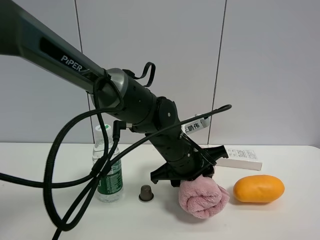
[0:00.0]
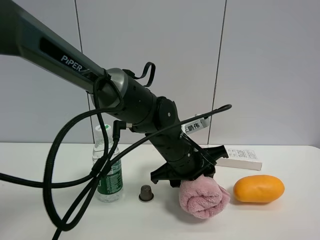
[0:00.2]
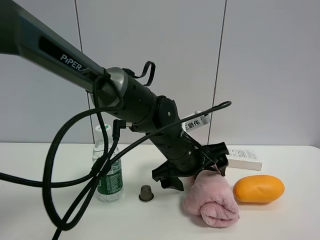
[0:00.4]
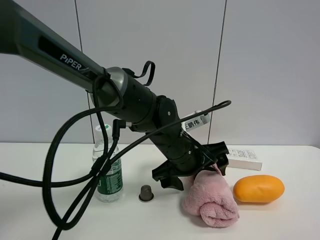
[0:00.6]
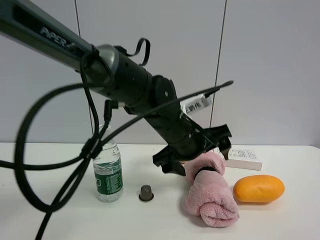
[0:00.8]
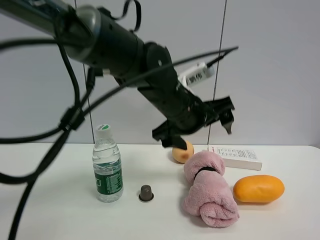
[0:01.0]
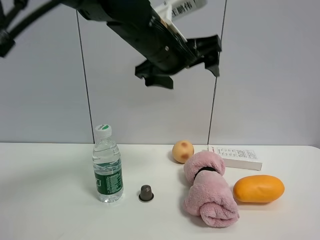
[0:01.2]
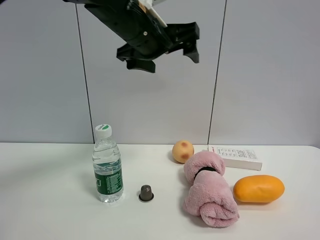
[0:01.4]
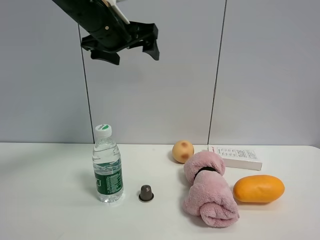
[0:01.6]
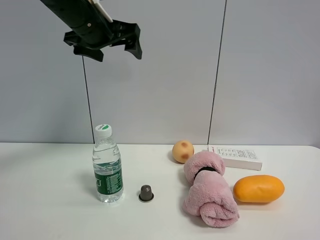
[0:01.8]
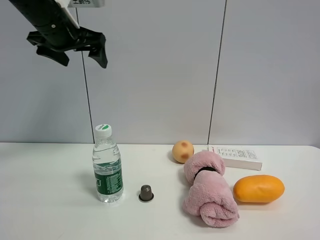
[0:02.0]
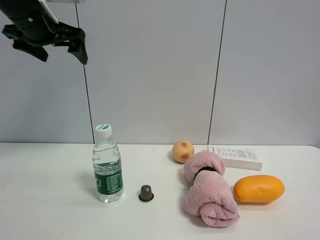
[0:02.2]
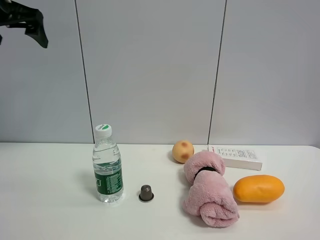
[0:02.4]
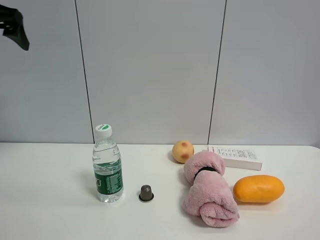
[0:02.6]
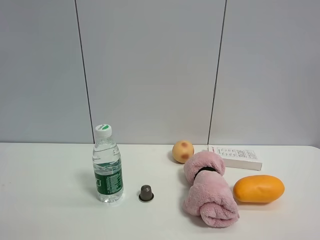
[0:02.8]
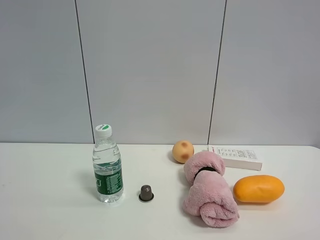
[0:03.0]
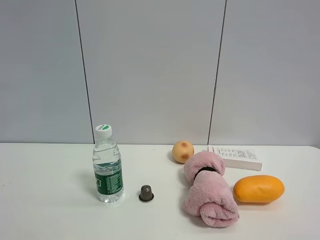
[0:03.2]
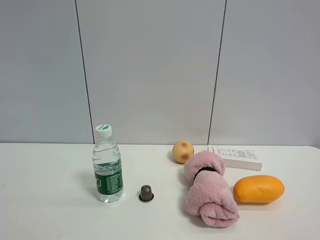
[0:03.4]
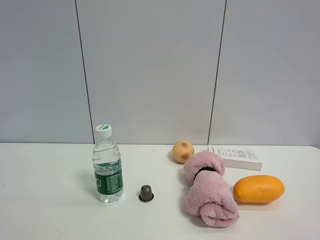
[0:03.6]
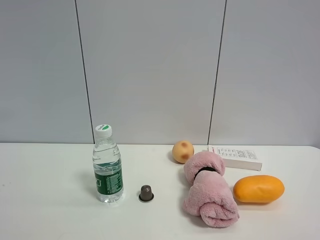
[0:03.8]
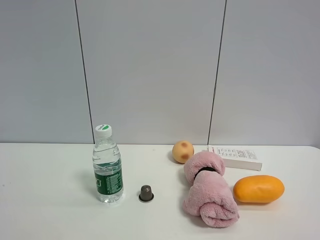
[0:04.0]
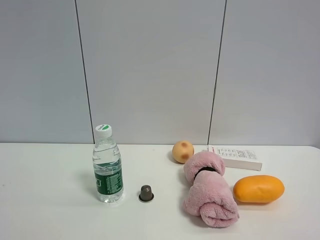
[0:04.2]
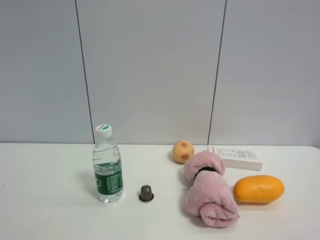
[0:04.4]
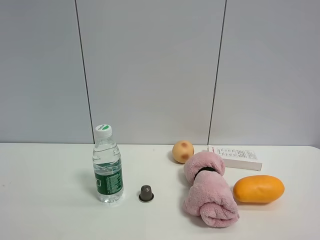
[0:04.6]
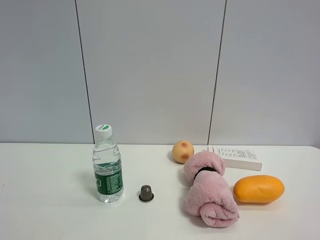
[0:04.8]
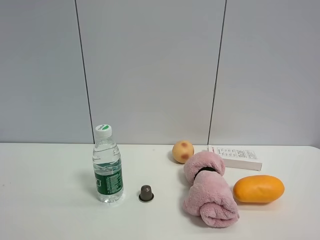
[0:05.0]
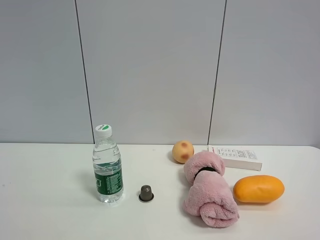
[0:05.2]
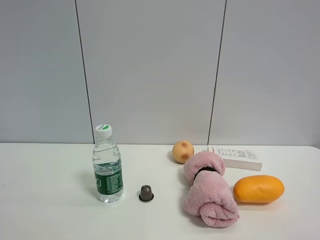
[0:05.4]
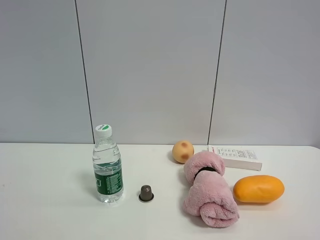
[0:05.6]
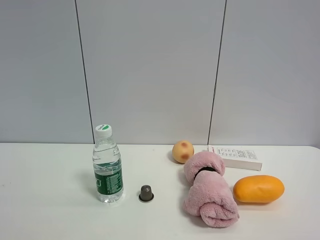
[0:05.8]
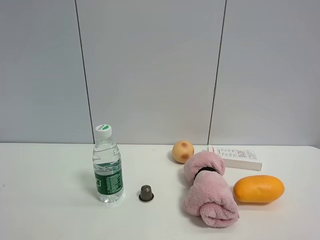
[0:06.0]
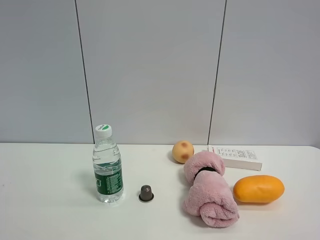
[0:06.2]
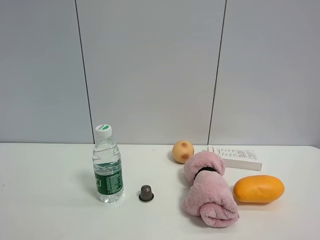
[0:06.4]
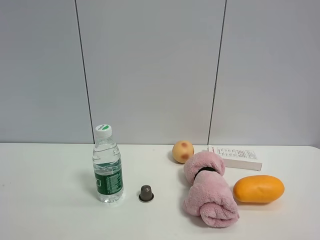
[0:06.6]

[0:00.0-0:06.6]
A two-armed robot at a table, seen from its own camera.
Task of the whole recording: the gripper move the object.
0:00.0 to 0:01.6: The left gripper is displaced upward and to the left by some 25 cm, and opens.
0:01.6 to 0:03.2: The left gripper travels backward and to the left by some 35 cm.
0:05.0 to 0:06.6: Both grippers stay put.

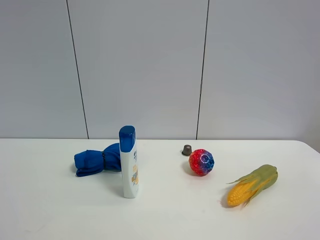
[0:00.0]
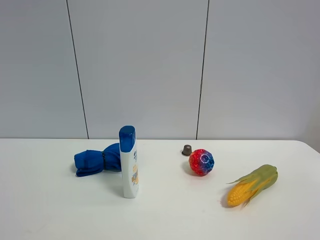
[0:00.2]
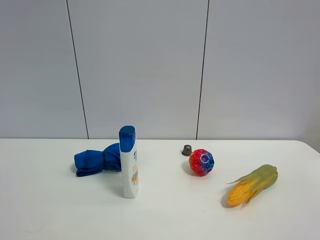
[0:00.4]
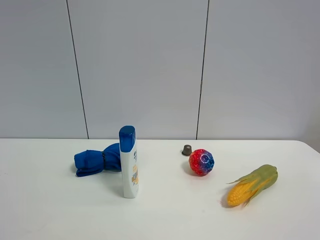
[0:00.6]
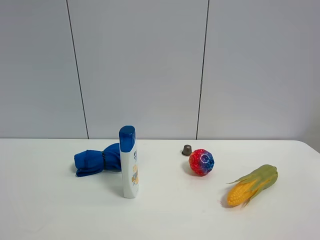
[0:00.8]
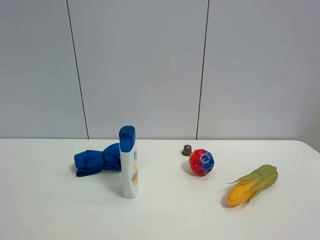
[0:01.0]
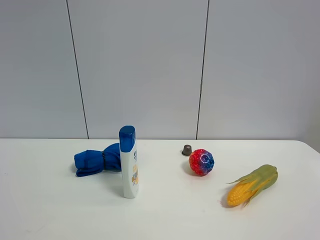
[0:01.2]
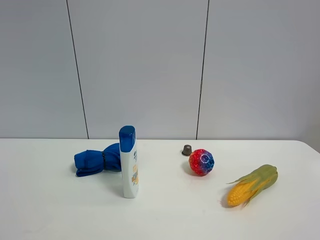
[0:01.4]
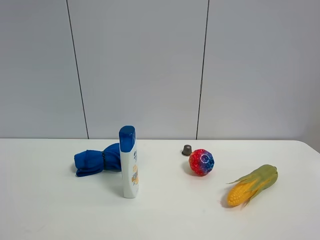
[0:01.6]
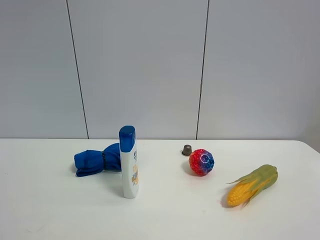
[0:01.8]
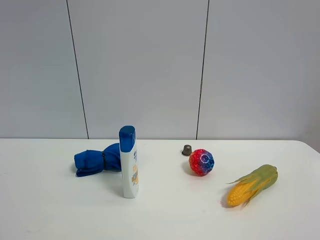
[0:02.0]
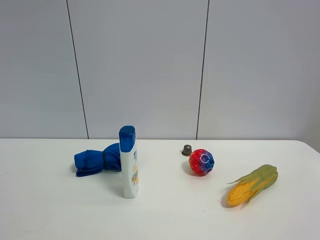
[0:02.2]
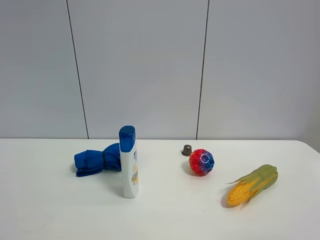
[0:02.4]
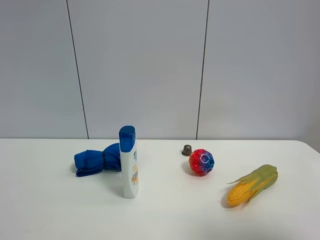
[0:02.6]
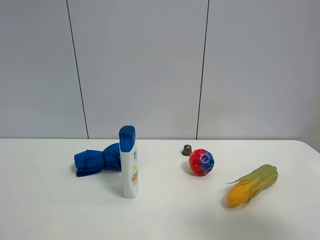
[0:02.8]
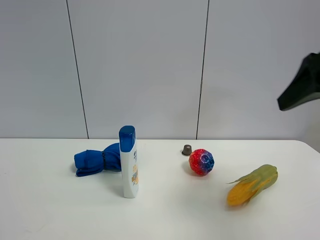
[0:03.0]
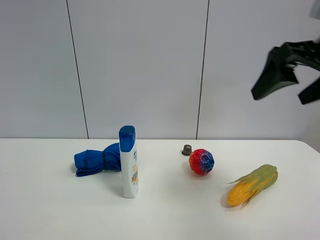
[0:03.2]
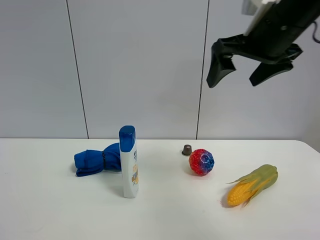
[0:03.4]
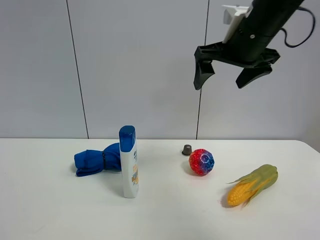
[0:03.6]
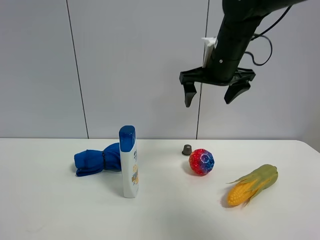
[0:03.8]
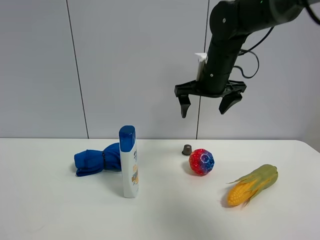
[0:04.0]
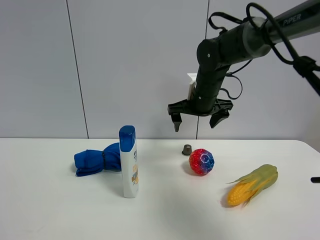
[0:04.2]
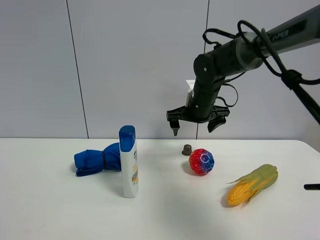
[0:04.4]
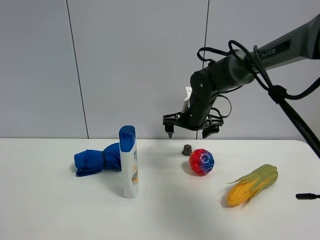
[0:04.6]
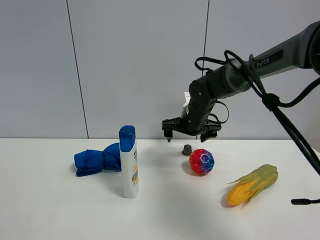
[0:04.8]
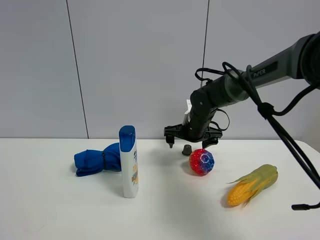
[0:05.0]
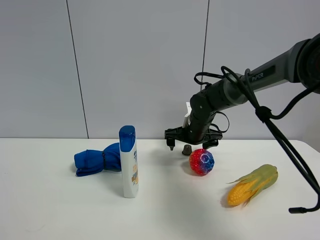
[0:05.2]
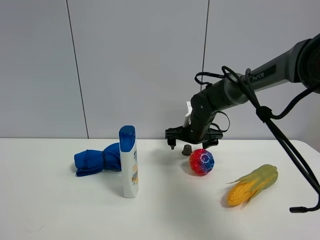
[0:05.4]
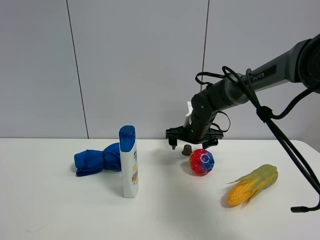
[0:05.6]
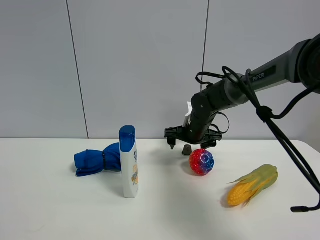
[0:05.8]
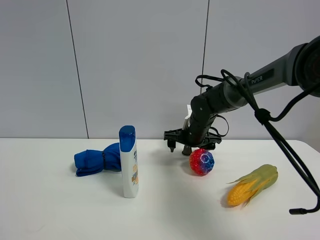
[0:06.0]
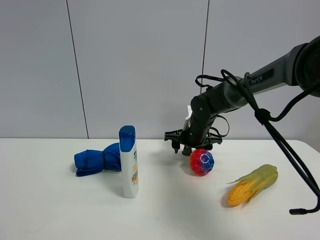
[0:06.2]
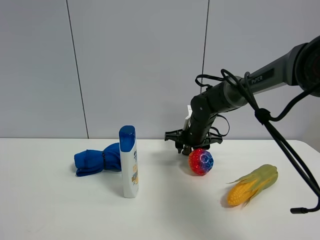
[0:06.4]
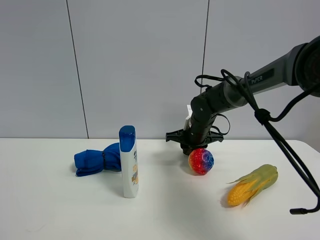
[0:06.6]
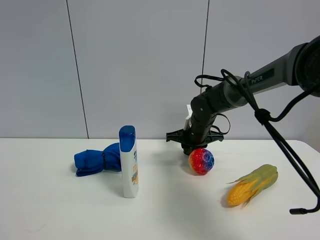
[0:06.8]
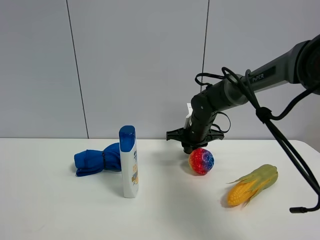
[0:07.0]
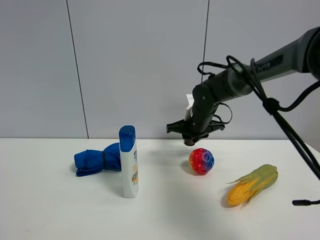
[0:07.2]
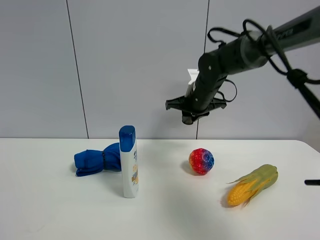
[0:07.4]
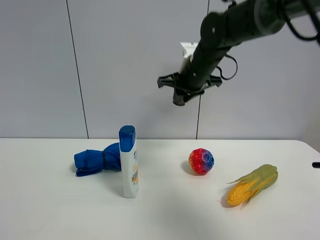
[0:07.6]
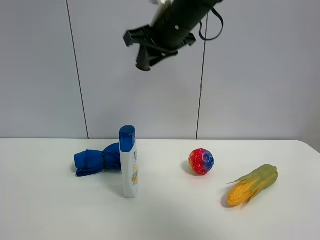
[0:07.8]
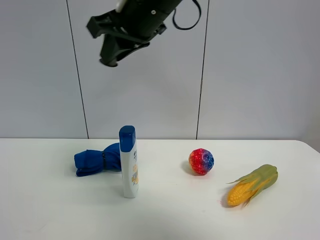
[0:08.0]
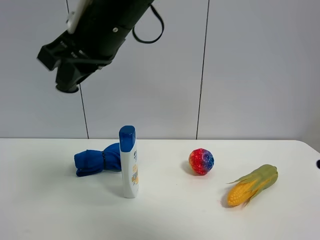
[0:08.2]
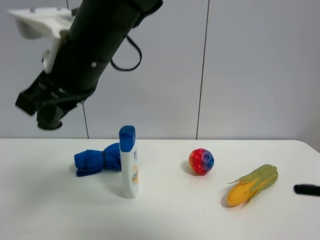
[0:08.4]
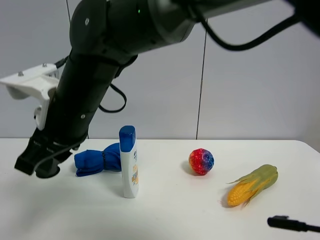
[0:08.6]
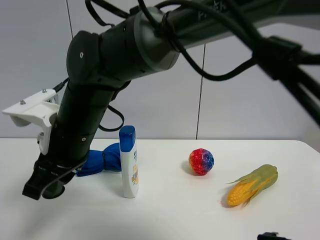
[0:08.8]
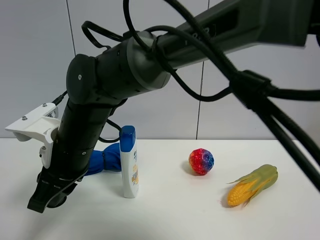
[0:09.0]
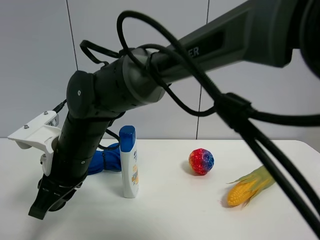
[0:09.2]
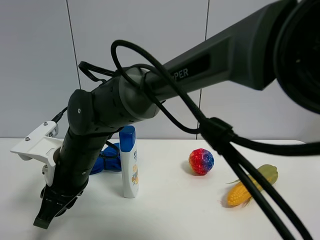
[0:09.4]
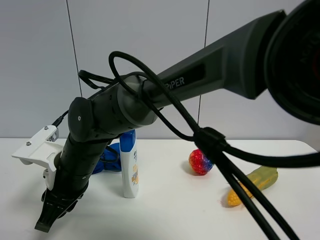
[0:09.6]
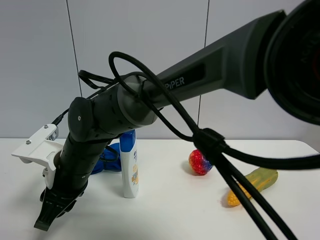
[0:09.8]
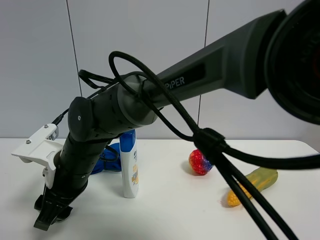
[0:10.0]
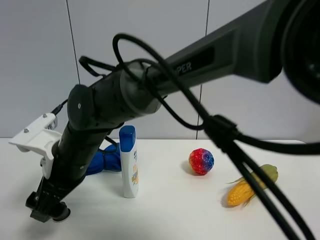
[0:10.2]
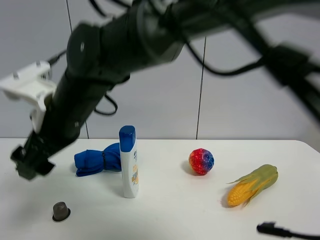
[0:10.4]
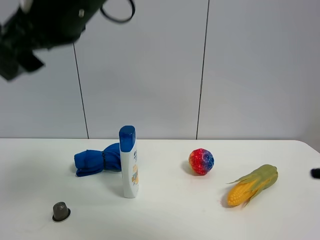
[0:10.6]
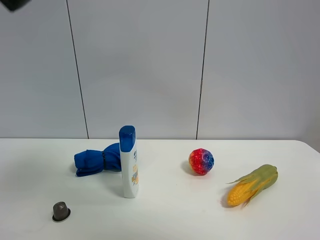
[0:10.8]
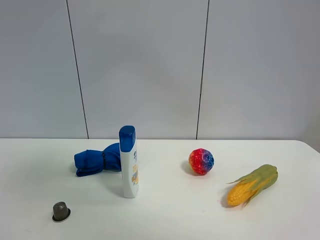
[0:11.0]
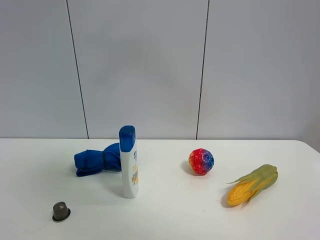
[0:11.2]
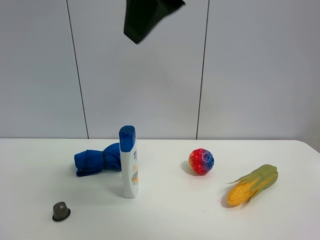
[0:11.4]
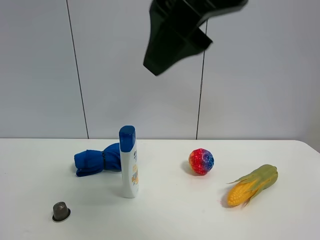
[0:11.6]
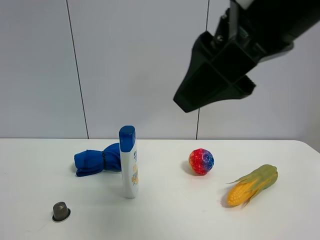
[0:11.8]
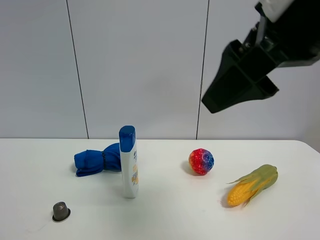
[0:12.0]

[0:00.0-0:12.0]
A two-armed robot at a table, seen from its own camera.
Task of the whole recording: the gripper move the object.
Step, 0:00.0 to 0:06.4: Grasp the coffee capsule with the right gripper.
Step, 0:06.6 to 0:10.4: Place the coffee capsule on the table with the right gripper.
0:00.0 to 0:01.6: Both grippers stay put.
0:01.6 to 0:03.0: The right gripper moves forward, approximately 20 cm.
0:03.0 to 0:04.4: The right gripper moves forward, to the left and downward, roughly 35 cm.
0:04.4 to 0:06.0: The right gripper is displaced downward by approximately 5 cm.
0:06.0 to 0:07.6: The right gripper shifts some 20 cm upward, and closes its fingers.
0:07.6 to 0:09.0: The right gripper is displaced to the left, backward and downward by approximately 30 cm.
0:09.0 to 0:10.4: The right gripper shifts approximately 10 cm upward, and opens up.
0:10.4 to 0:12.0: The right gripper is displaced to the right by about 25 cm.

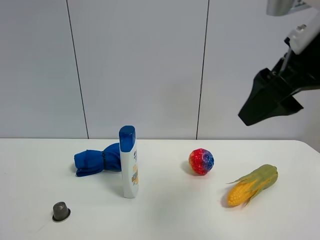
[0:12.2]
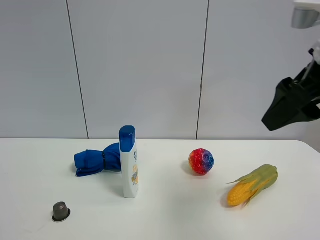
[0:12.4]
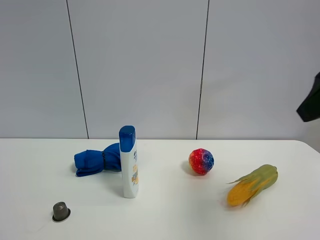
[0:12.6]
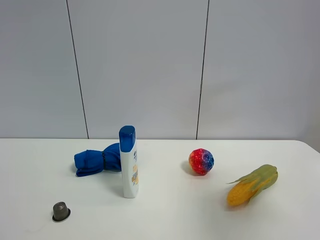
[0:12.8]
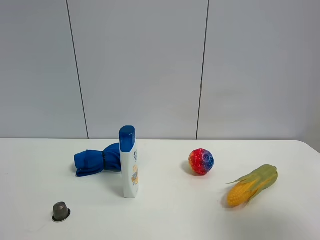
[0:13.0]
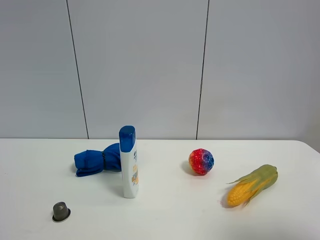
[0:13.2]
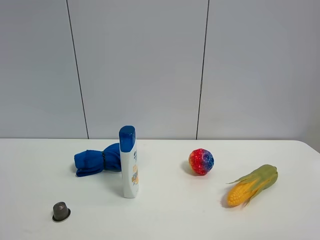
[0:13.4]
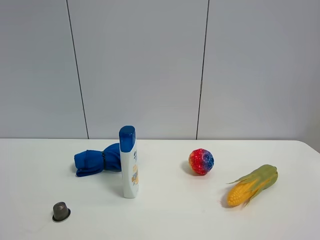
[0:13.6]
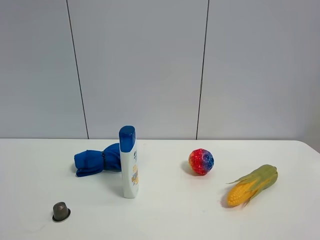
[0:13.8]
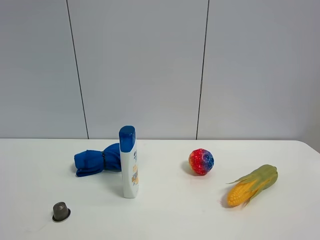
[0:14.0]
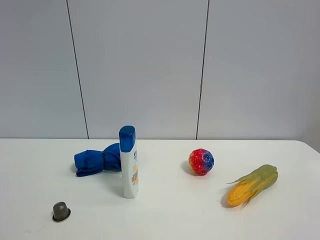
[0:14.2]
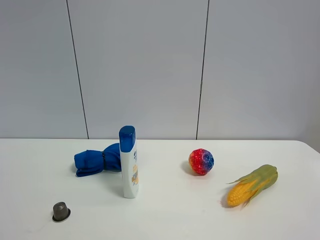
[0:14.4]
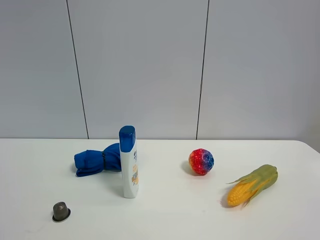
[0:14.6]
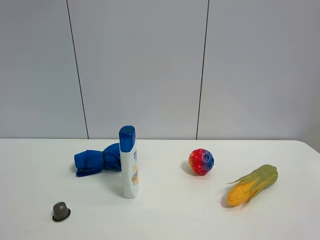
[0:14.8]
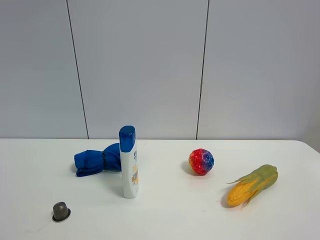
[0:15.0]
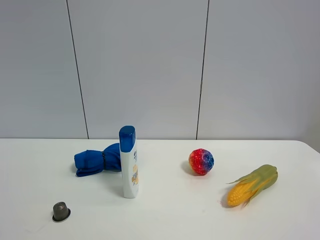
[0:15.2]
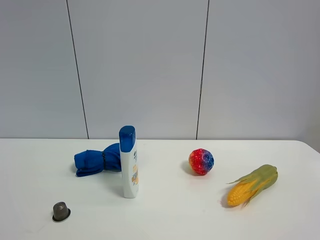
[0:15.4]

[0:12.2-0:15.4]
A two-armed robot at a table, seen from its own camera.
Task of the whole recording: the gripper move the object.
0:12.2 to 0:13.8: The right gripper heads backward and to the right, covering roughly 25 cm.
